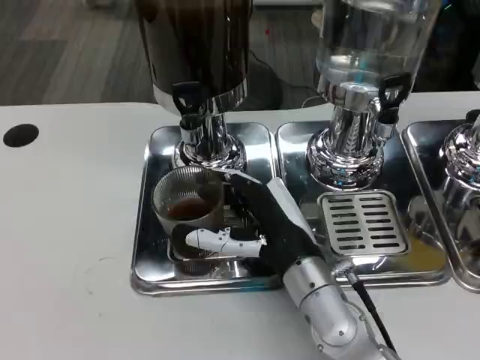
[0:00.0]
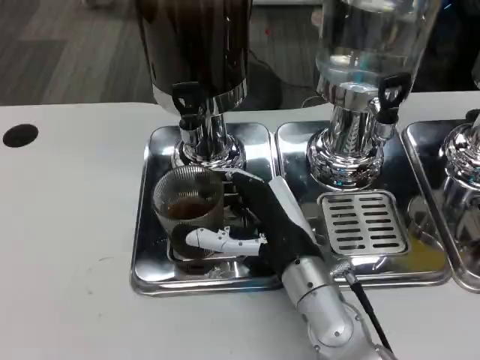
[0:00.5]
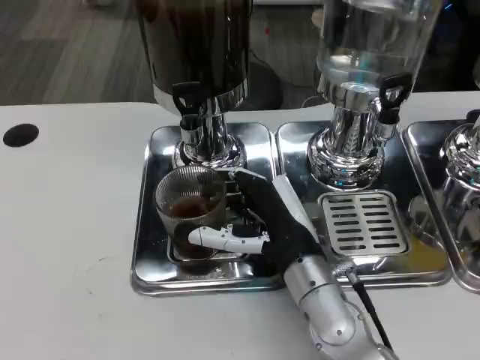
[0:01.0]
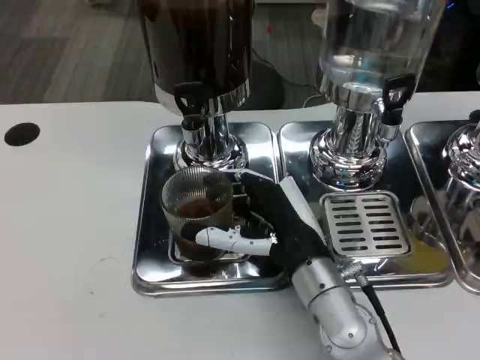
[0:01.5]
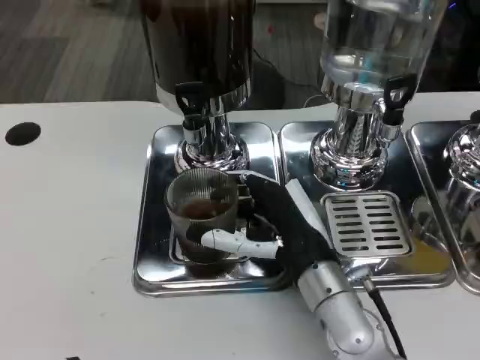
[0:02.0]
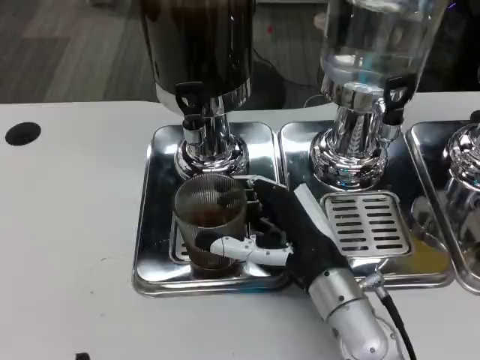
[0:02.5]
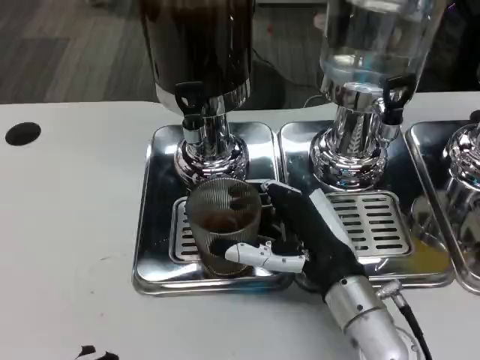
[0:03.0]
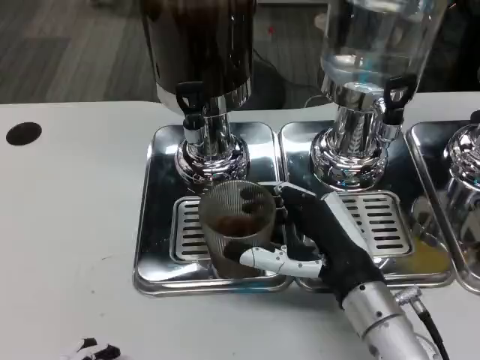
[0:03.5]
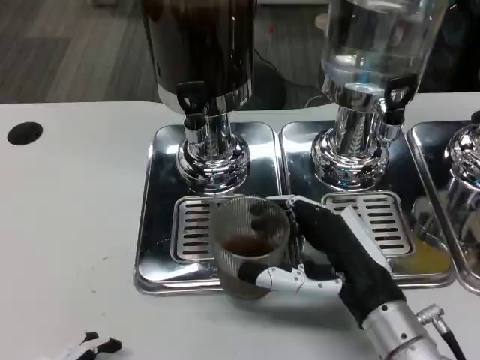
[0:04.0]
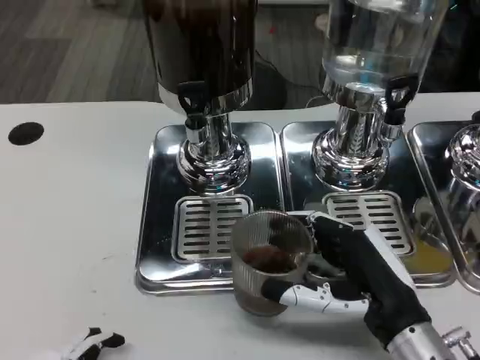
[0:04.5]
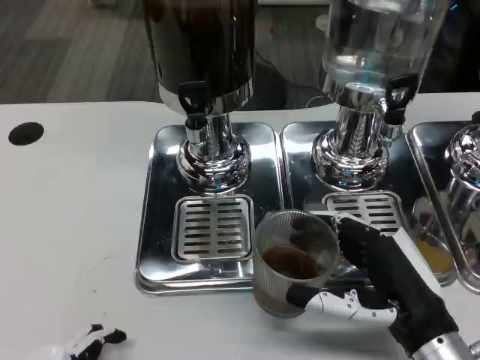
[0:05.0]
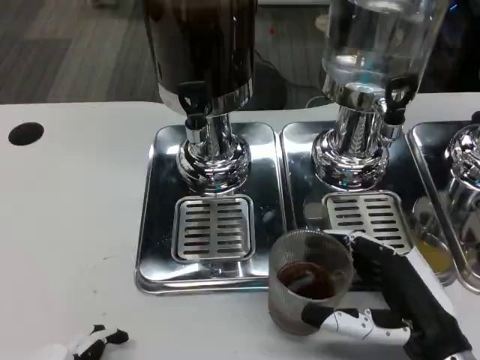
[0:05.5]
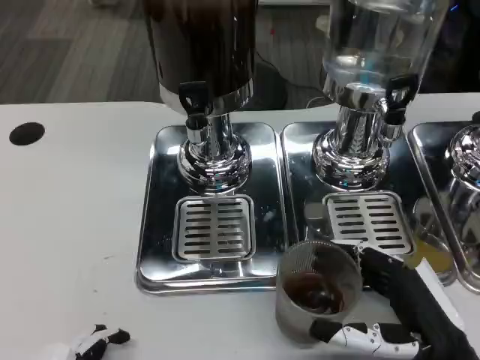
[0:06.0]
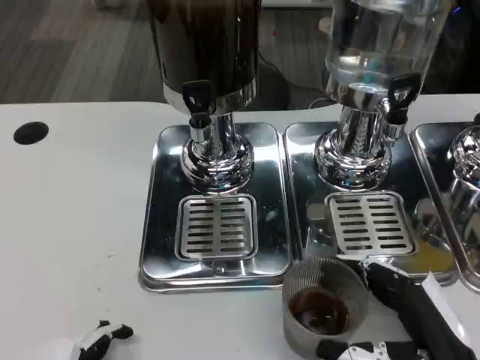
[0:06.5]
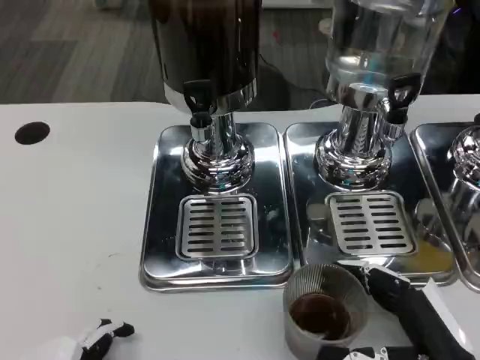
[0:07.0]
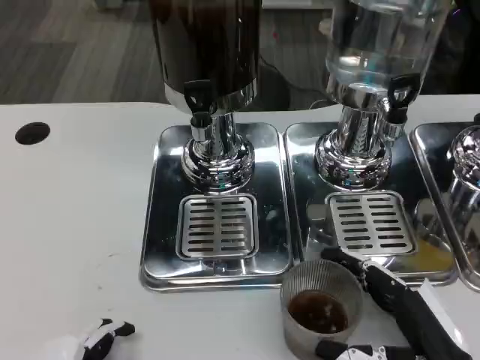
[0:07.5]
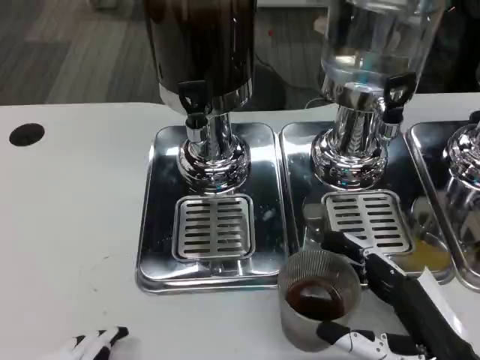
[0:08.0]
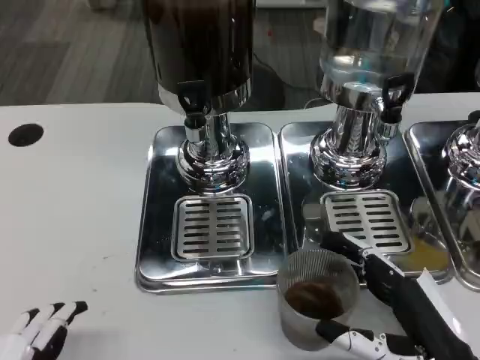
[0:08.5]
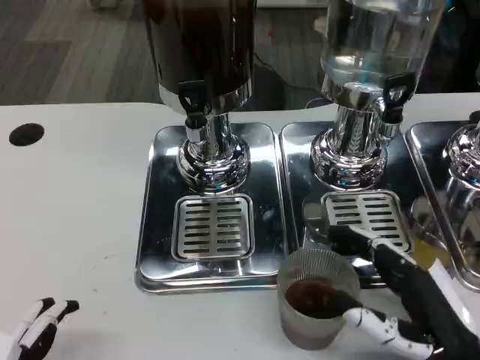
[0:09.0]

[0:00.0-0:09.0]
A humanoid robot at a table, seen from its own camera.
Task of the whole recording: Grasp the cup under the faucet to collect the drink, then remove the cup.
0:02.0 to 0:04.5: The right hand moves to the right and backward, about 10 cm.
0:04.5 to 0:07.0: The right hand travels to the right by approximately 5 cm.
0:07.0 to 0:09.0: The left hand shifts by roughly 5 cm.

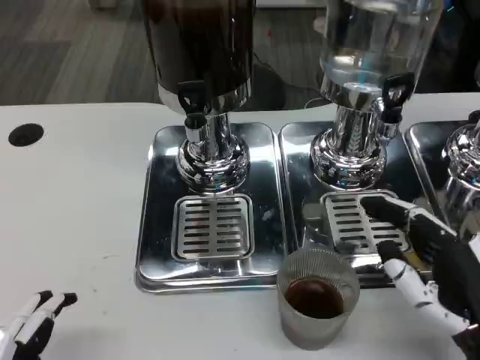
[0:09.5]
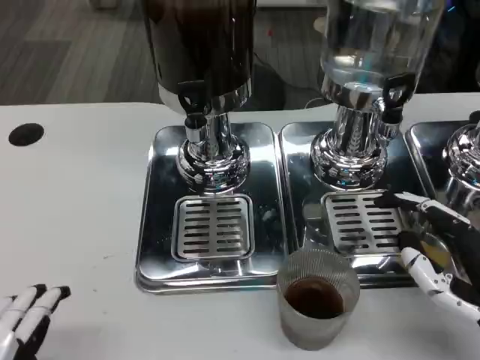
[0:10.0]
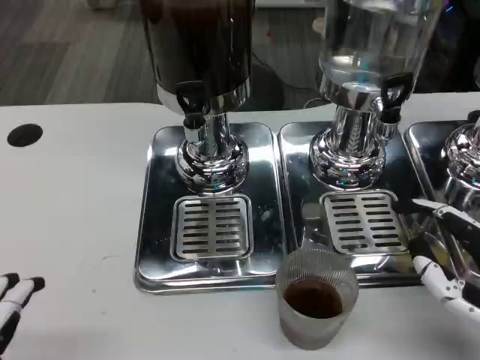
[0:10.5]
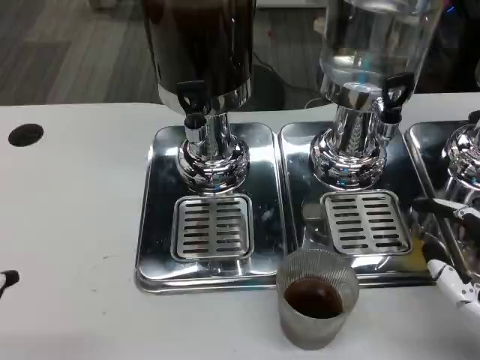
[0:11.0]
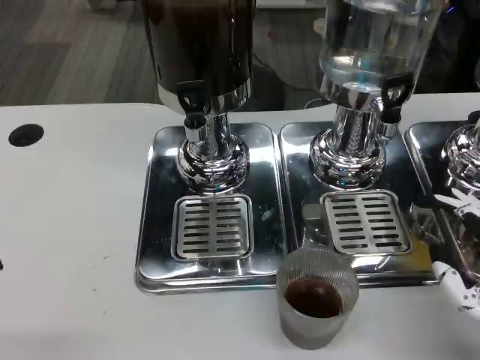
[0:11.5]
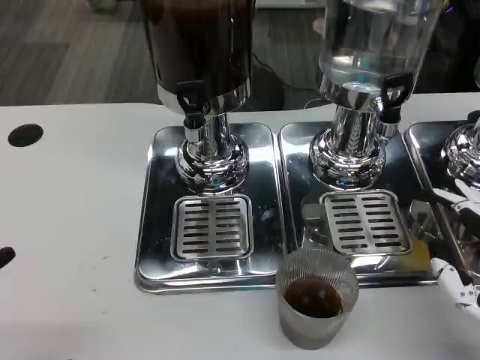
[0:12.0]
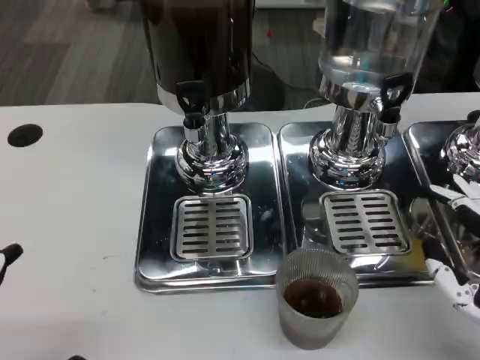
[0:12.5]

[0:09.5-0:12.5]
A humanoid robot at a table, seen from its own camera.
Task of the whole recording: Grasp the cup under the faucet to collect the drink, then remove the cup.
0:09.5 to 0:11.0: The left hand changes place by approximately 5 cm.
0:11.0 to 0:12.5: The left hand ends up roughly 5 cm from where it was.

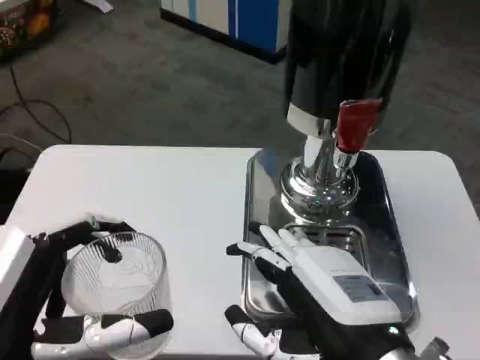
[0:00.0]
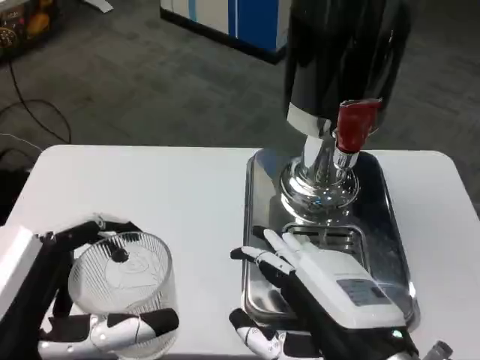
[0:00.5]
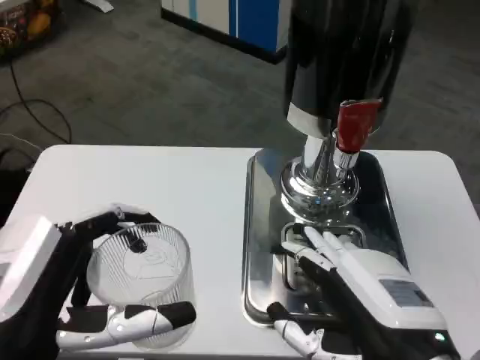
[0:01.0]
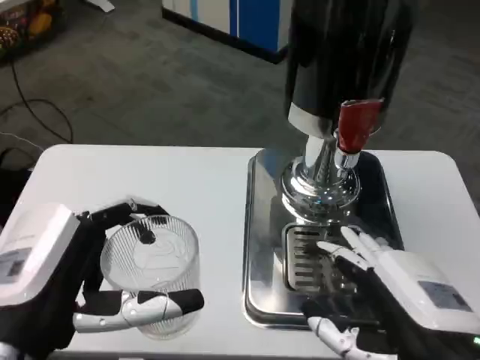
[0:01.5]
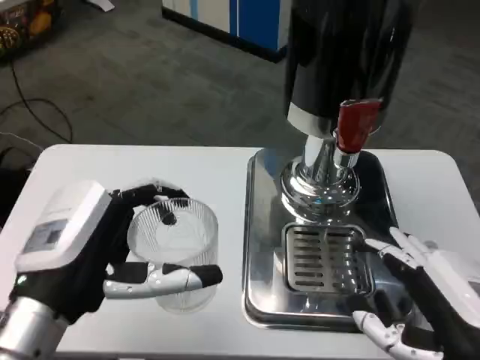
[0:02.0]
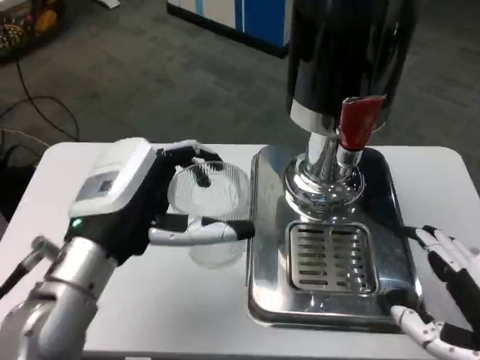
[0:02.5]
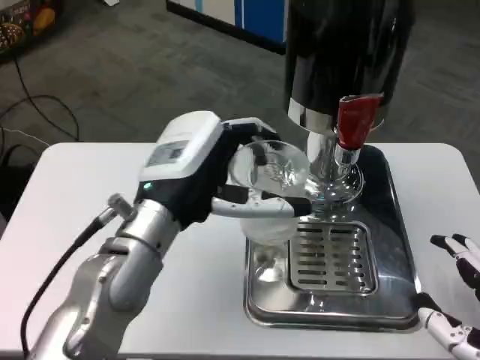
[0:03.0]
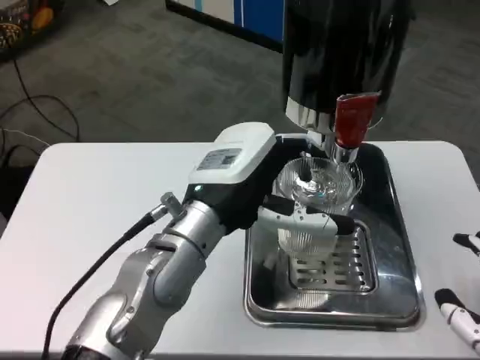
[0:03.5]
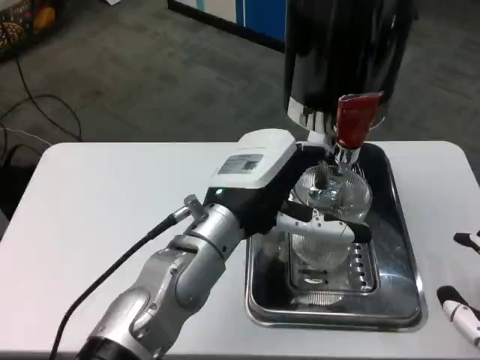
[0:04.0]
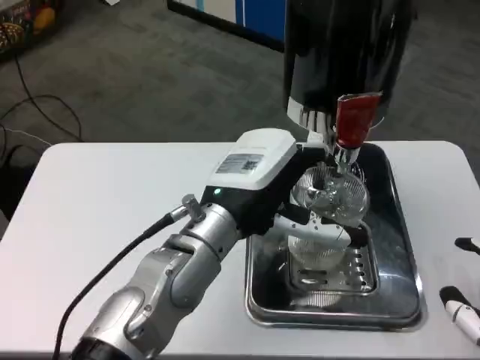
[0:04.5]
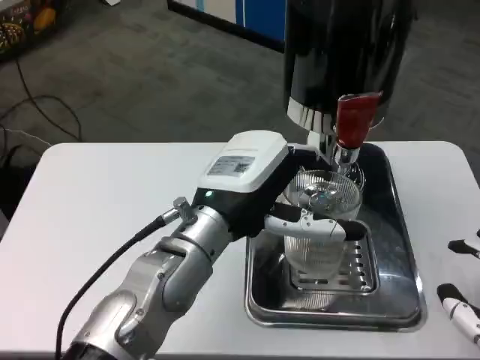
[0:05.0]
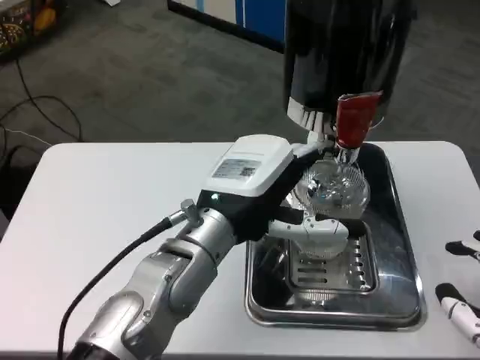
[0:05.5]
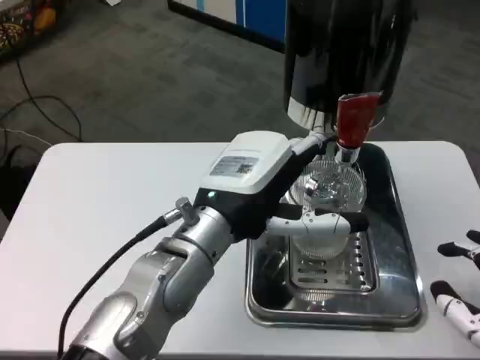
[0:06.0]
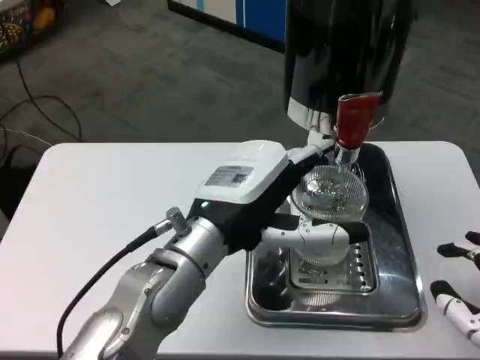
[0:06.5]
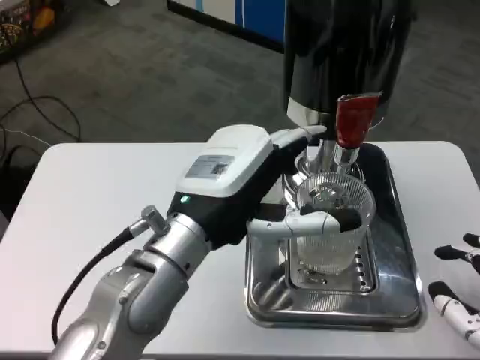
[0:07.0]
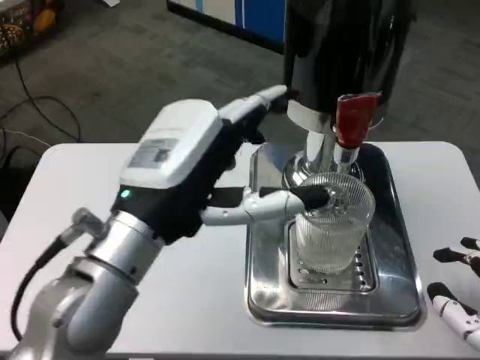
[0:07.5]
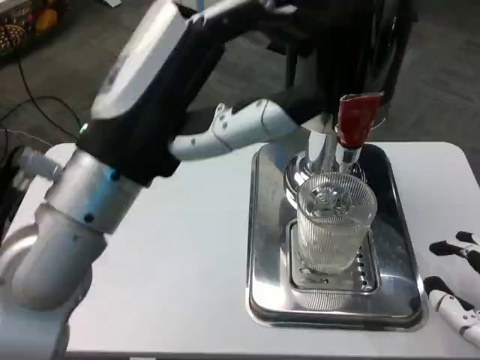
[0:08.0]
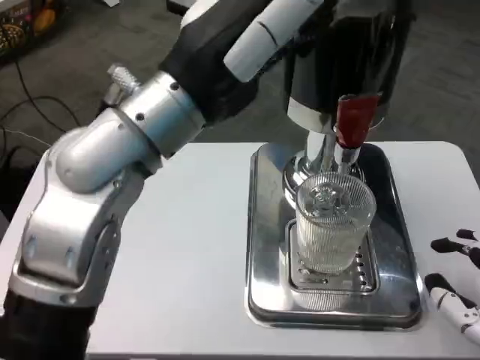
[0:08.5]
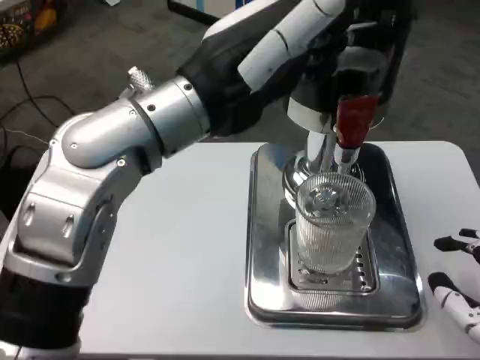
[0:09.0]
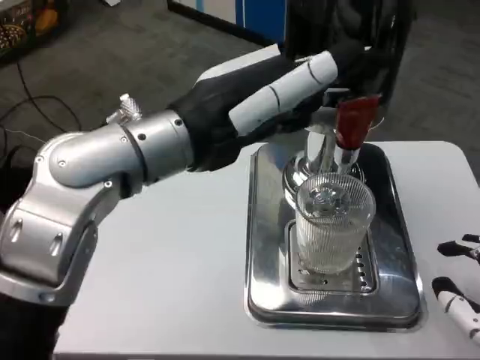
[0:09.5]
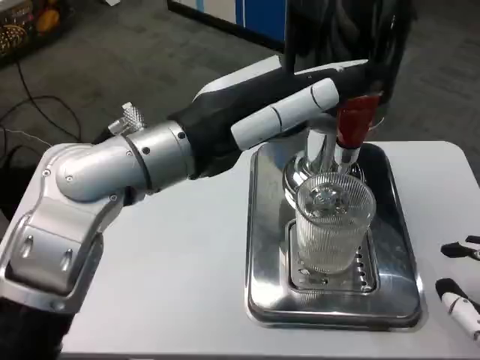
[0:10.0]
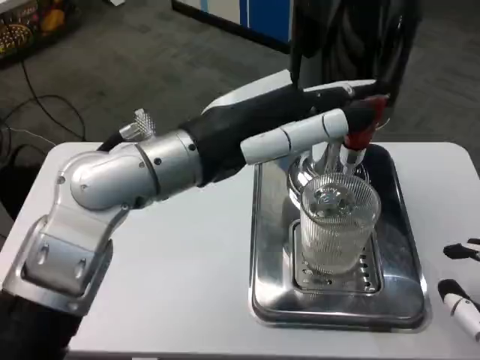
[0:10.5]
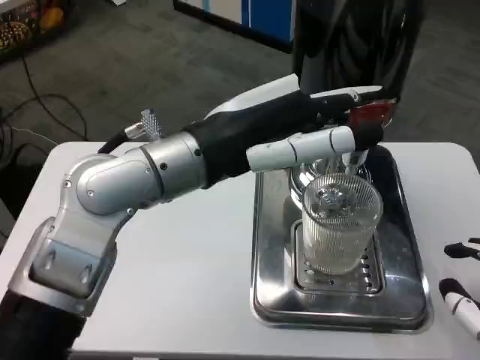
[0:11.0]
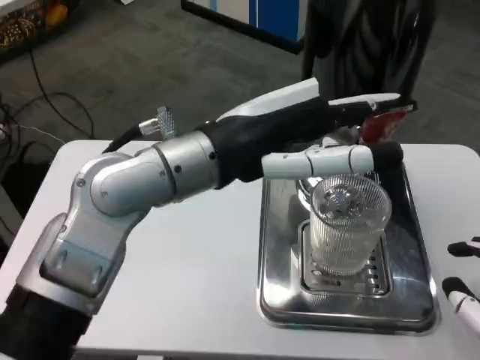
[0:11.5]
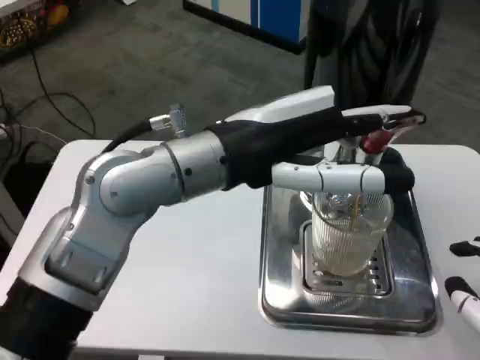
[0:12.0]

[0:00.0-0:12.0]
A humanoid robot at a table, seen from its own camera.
Task of the whole recording: Grasp the cup under the faucet to collect the drink, then remove the cup.
0:00.0 to 0:02.0: The left hand is displaced forward by roughly 5 cm. The right hand is displaced to the right by approximately 5 cm.
0:02.0 to 0:04.0: The right hand shifts by about 5 cm, while the left hand is displaced to the right and forward by some 15 cm.
0:04.0 to 0:06.0: The hands stay close to where they were, moving slightly.
0:06.0 to 0:08.0: The left hand heads upward, backward and to the left, covering about 15 cm.
0:08.0 to 0:10.0: The left hand travels forward by approximately 5 cm.

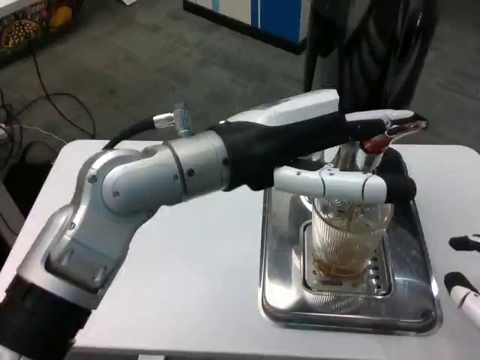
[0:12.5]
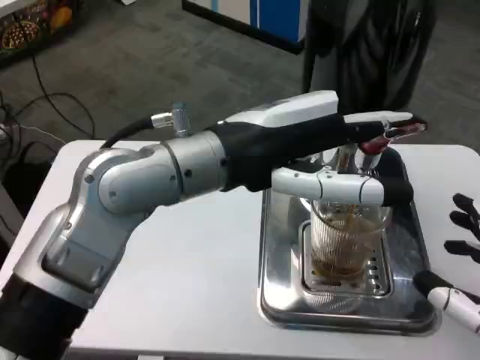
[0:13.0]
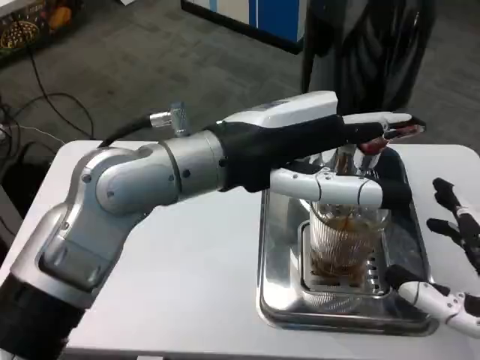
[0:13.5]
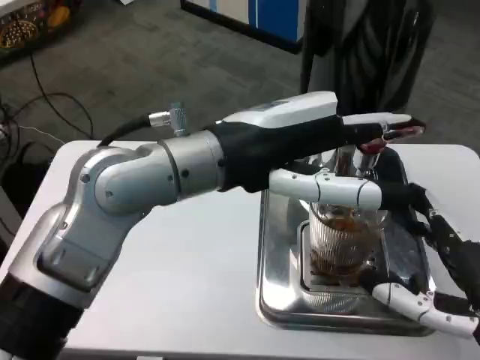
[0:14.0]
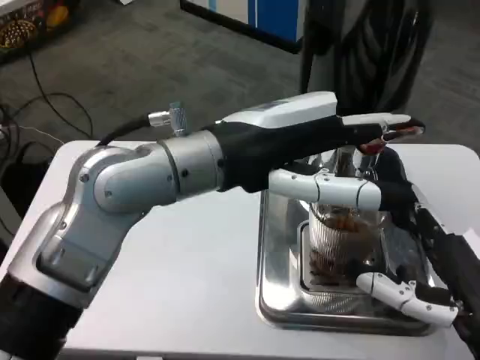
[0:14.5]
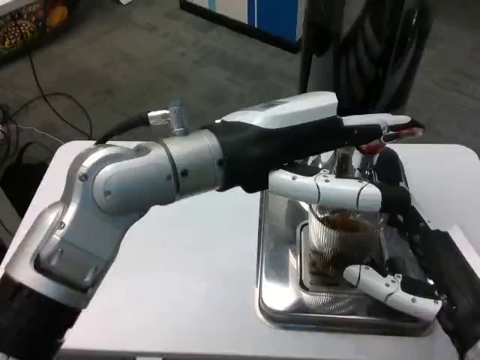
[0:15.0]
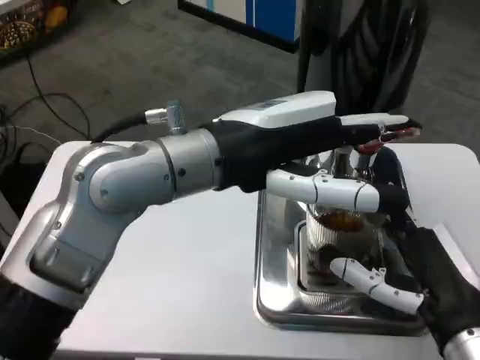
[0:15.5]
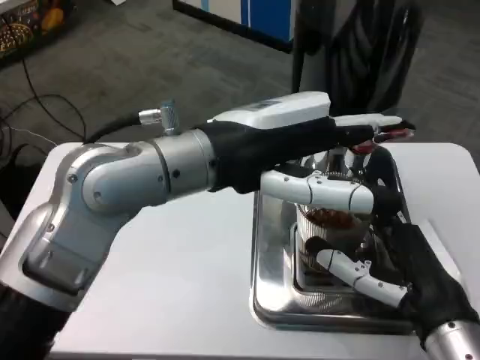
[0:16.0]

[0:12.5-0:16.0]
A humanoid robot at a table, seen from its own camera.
Task of the whole recording: Grasp the cup under the faucet to collect the drink, then remove the cup.
0:12.5 to 0:14.5: The right hand changes place by some 5 cm.
